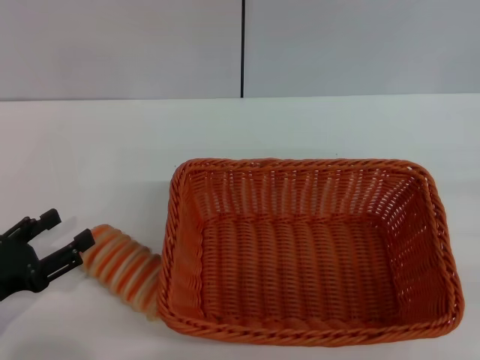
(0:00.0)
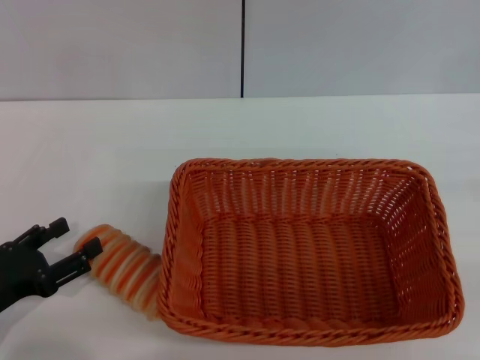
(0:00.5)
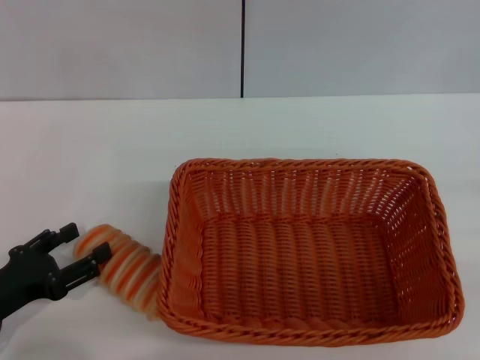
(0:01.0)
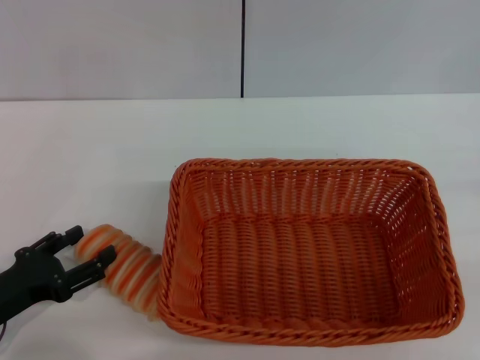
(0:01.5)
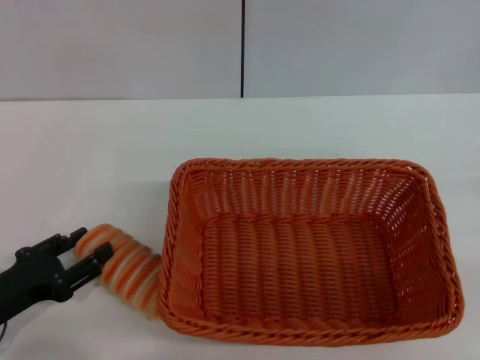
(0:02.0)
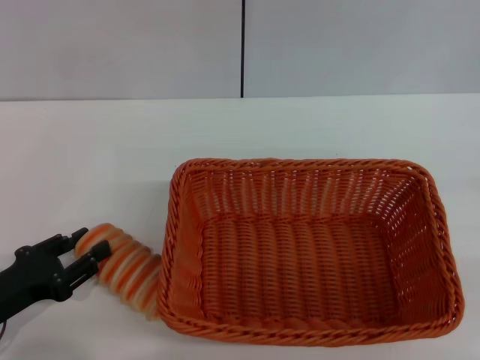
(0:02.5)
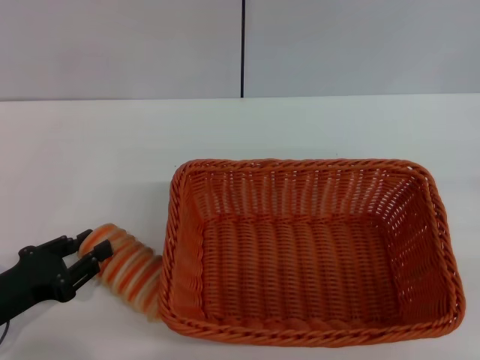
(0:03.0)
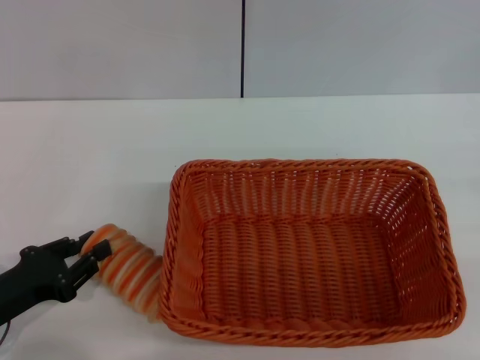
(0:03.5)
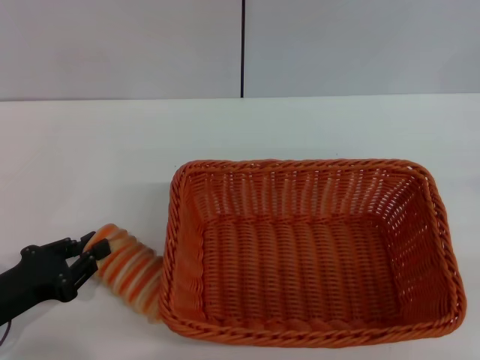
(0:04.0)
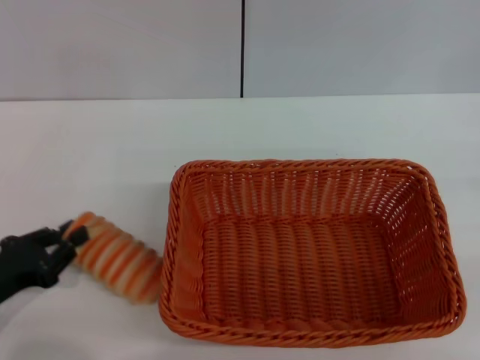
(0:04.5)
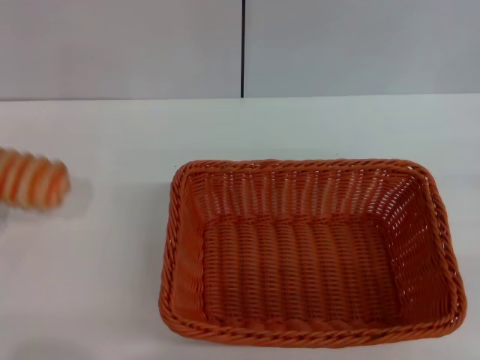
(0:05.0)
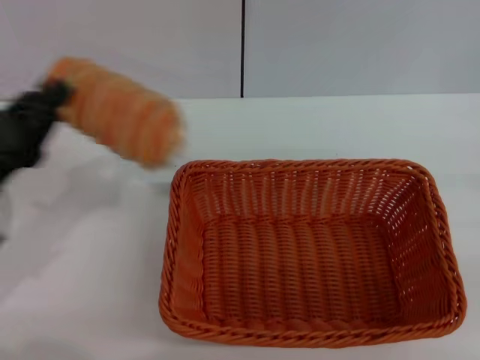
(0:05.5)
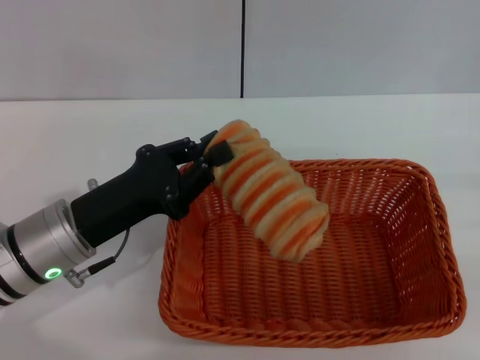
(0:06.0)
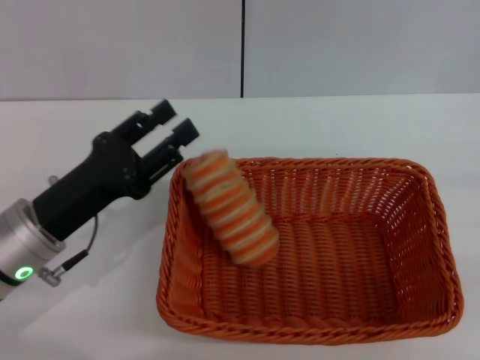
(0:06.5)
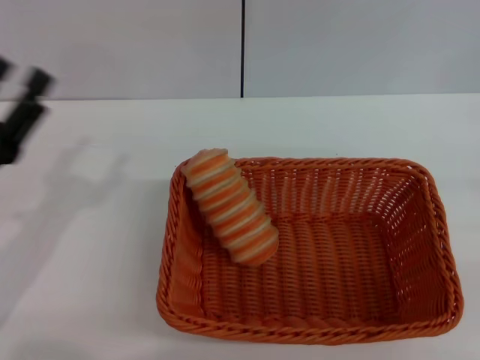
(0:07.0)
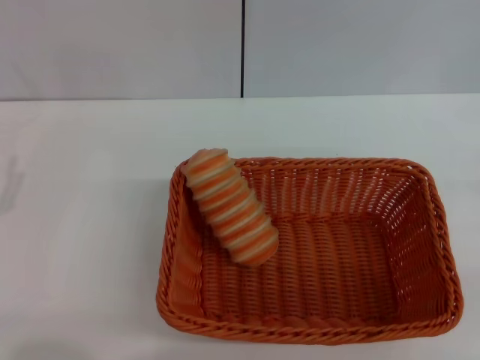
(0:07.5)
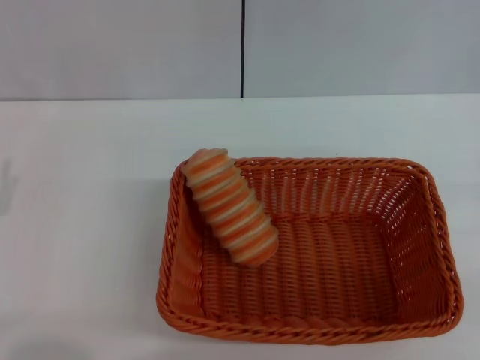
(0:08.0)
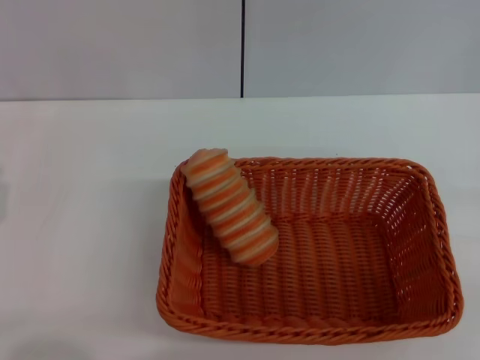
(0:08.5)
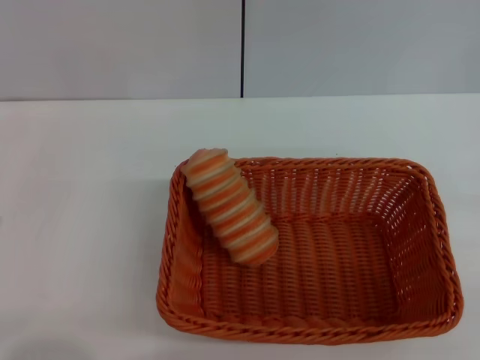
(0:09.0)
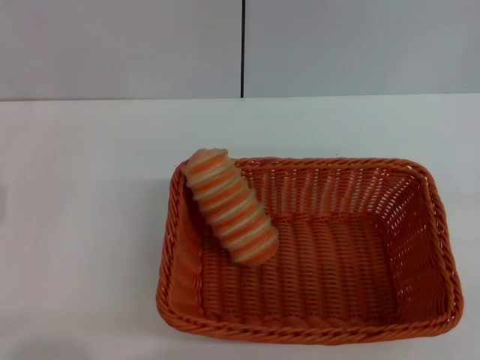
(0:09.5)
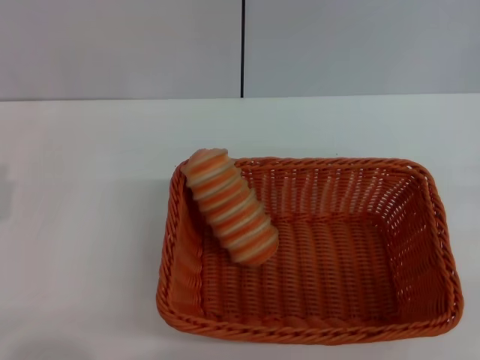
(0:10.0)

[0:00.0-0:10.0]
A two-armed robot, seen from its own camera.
Step, 0:00.0 to 0:05.0: Pick up the long bread with the left gripper.
Step, 0:05.5 to 0:06.5: Place the long bread into the light basket with the left gripper.
0:00.0 to 0:02.0: The grippers stay close to where they were, moving slightly.
0:02.0 to 0:04.0: The left gripper closes up.
0:04.0 to 0:06.0: The left gripper goes some 10 cm to the right and forward.
0:06.0 to 0:08.0: The left gripper travels to the left and backward by some 15 cm, and opens up.
